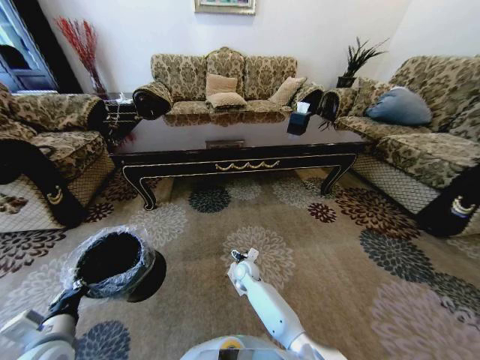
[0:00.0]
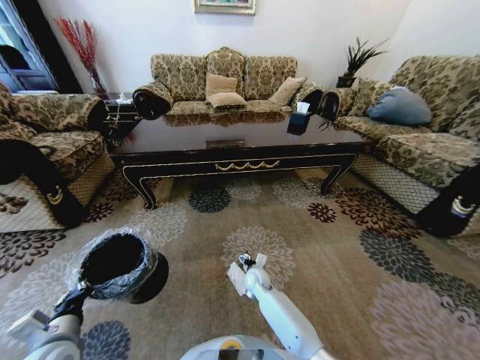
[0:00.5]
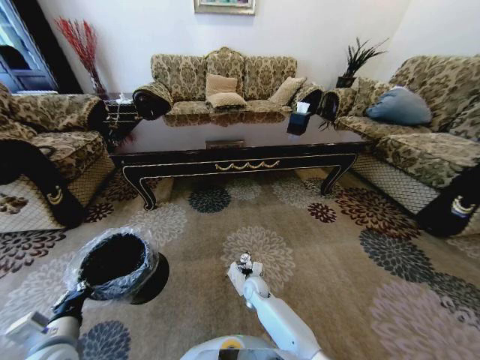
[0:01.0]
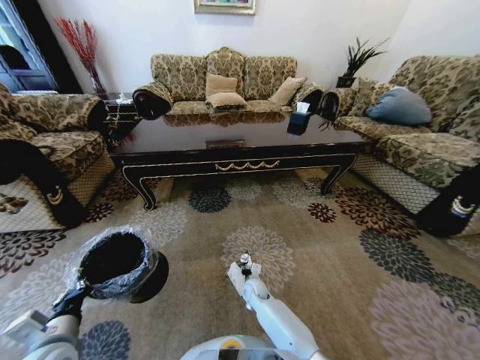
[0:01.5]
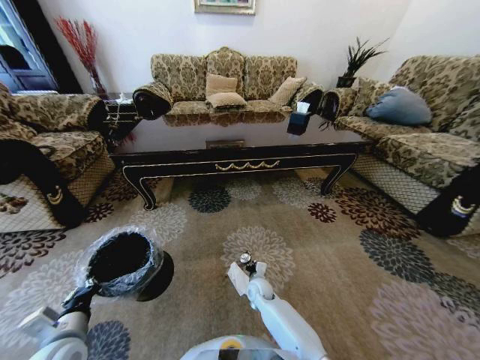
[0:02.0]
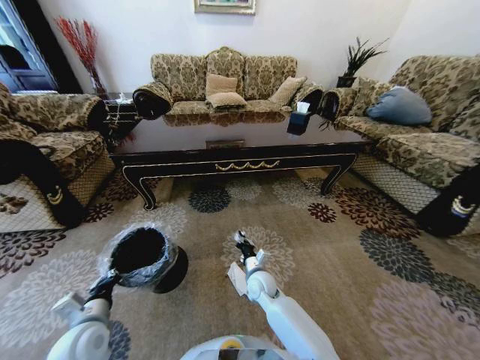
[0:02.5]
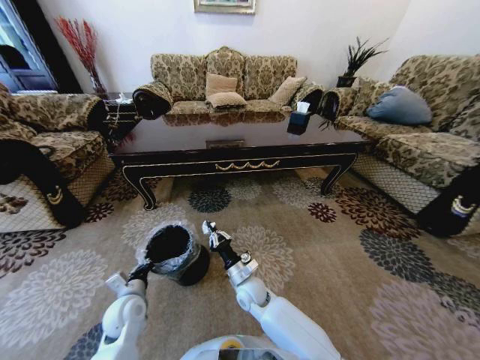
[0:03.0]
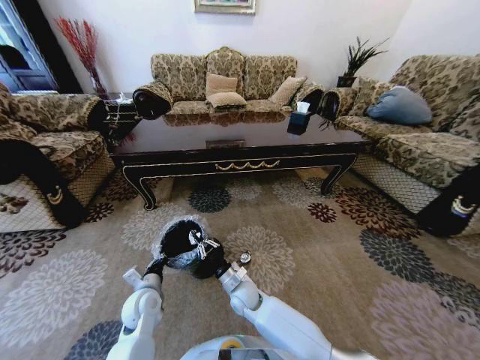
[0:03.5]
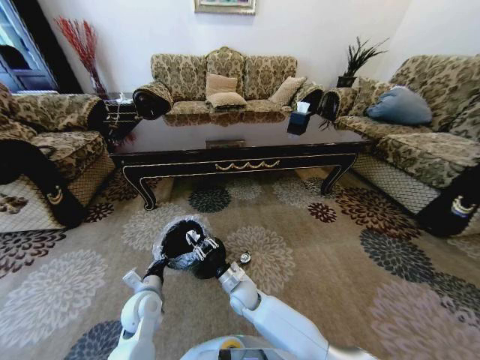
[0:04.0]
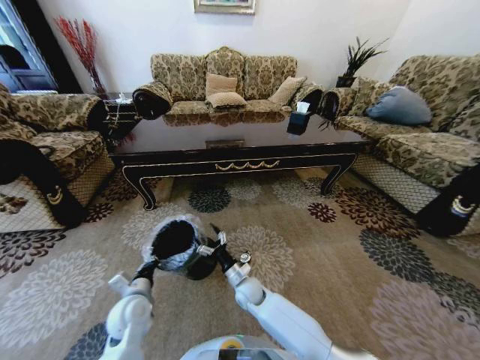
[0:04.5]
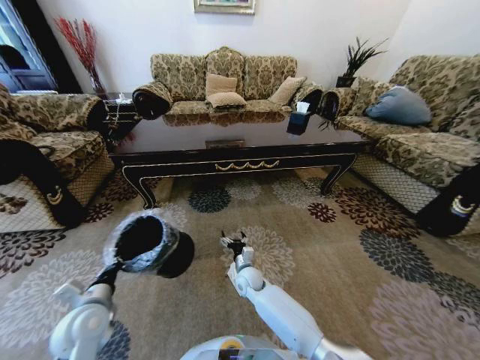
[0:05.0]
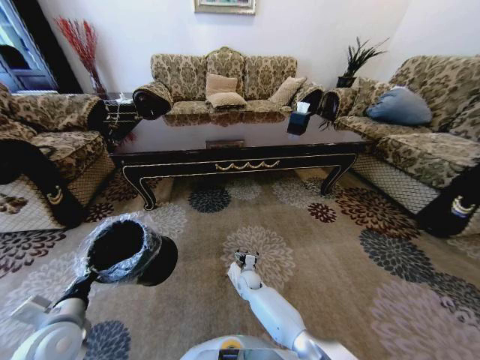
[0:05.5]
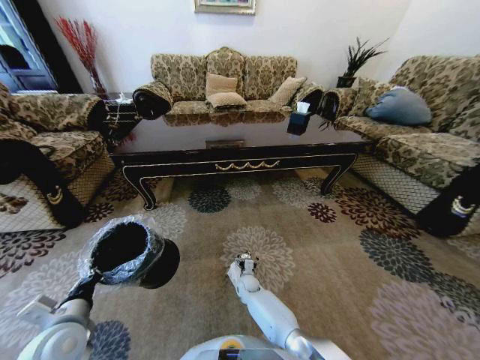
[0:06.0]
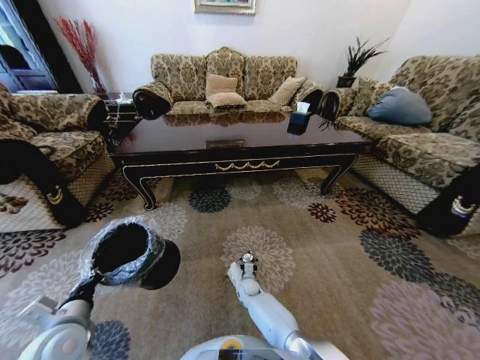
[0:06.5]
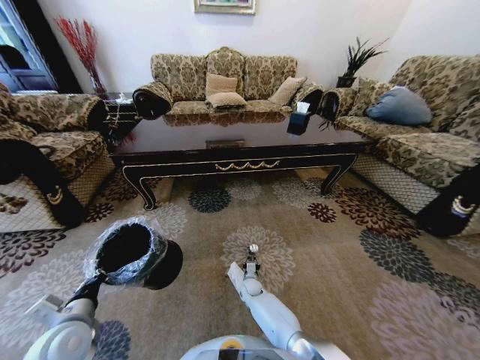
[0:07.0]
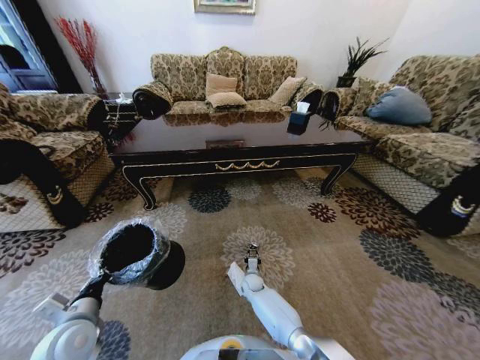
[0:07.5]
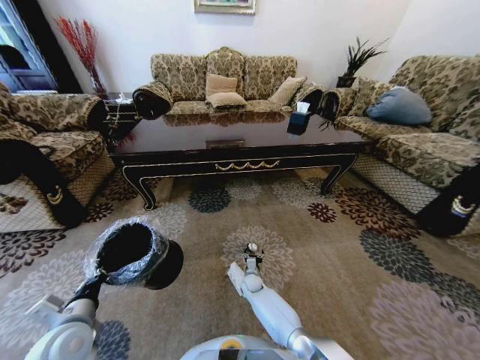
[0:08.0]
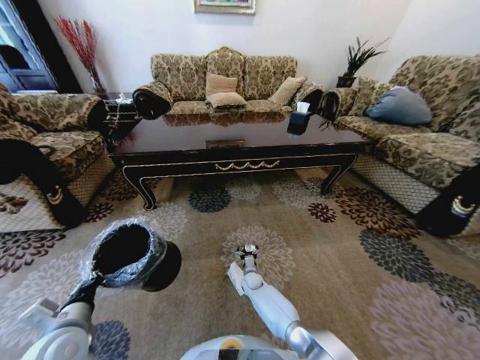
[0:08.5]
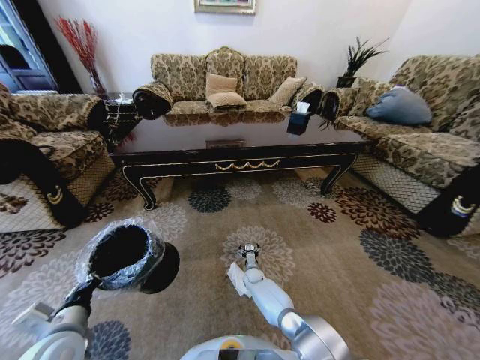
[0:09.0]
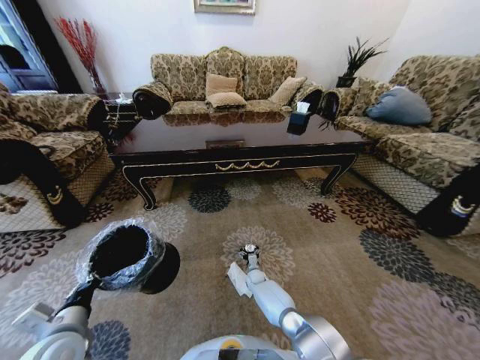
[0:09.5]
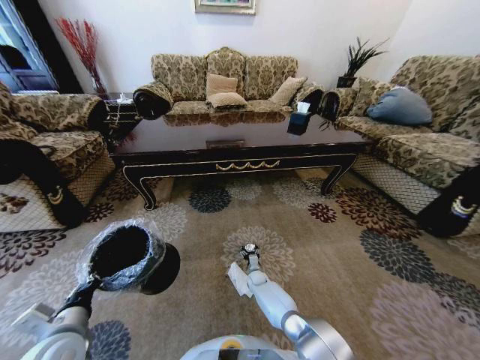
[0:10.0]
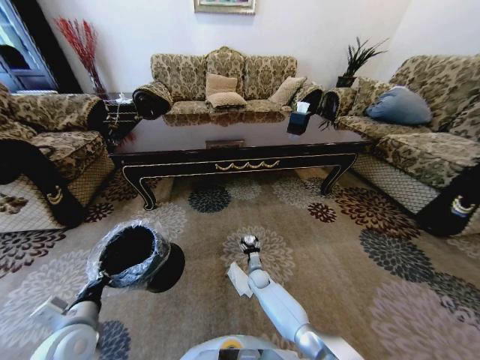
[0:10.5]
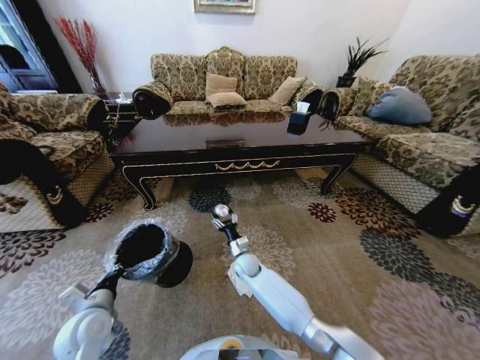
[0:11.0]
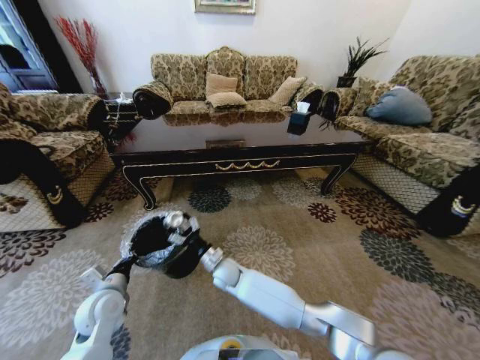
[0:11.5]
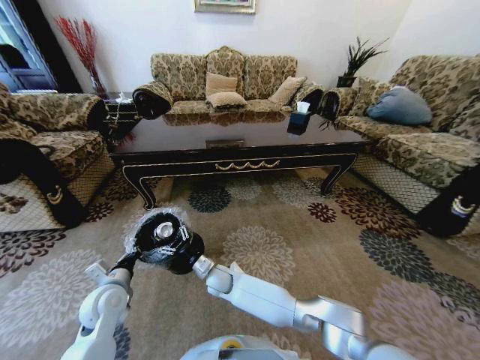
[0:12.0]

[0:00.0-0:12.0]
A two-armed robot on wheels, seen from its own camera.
Task of the whole recording: Move to the front of the table and pick up the trash from the floor, then place it into the trash bin.
0:00.0 to 0:02.0: The right gripper goes about 5 cm backward, and closes up.
0:02.0 to 0:04.0: The left gripper is displaced forward, to the right and downward by roughly 15 cm. Meanwhile the right gripper goes some 10 cm to the left and upward.
0:04.0 to 0:06.0: The left gripper heads to the left, upward and backward, covering approximately 15 cm; the right gripper is displaced downward and forward by approximately 15 cm, and opens up.
0:06.0 to 0:08.0: The right gripper closes, then reopens.
0:08.0 to 0:10.0: The right gripper changes place by some 5 cm.
0:10.0 to 0:12.0: The right gripper travels upward and to the left by some 25 cm. Meanwhile the left gripper moves forward, about 10 cm.

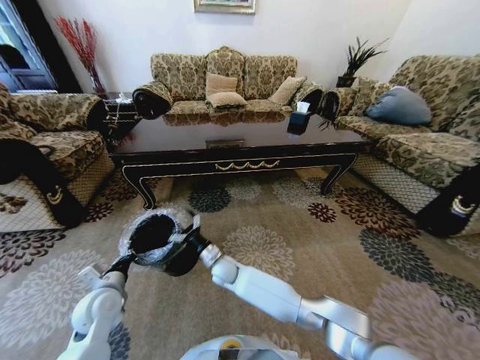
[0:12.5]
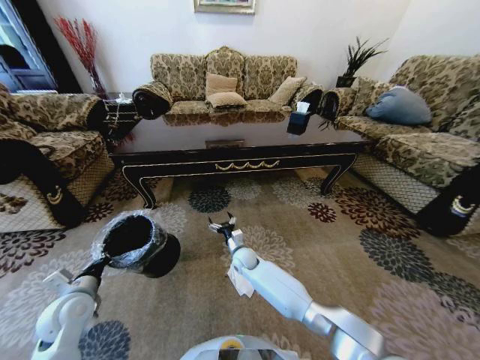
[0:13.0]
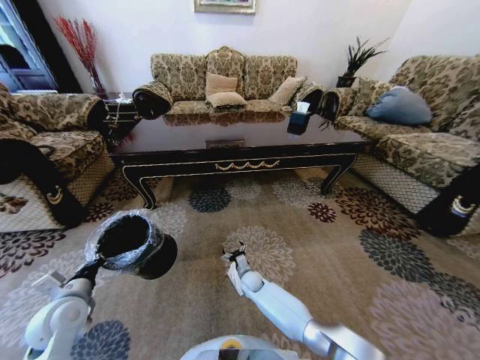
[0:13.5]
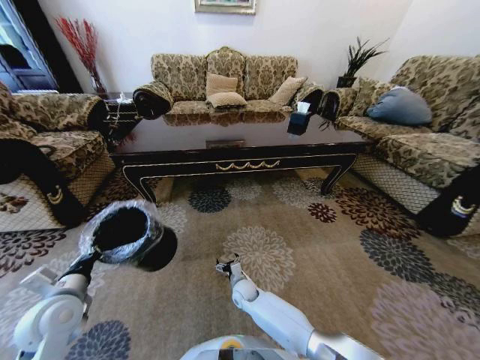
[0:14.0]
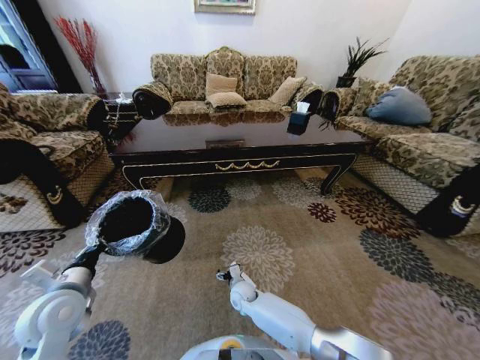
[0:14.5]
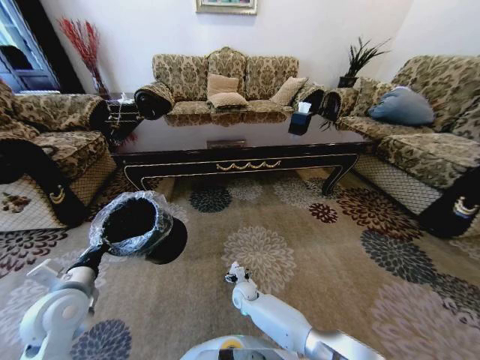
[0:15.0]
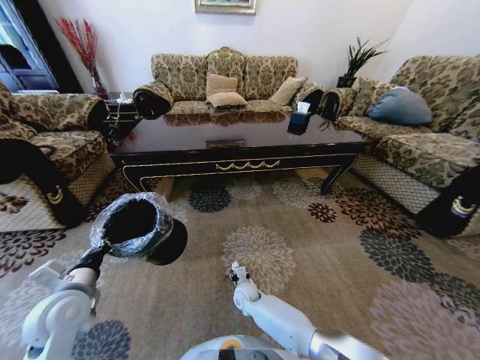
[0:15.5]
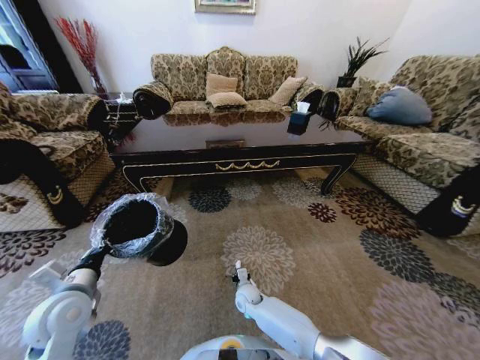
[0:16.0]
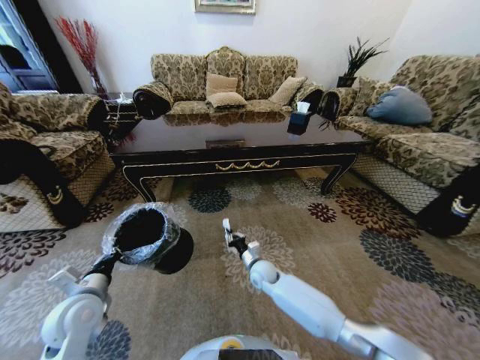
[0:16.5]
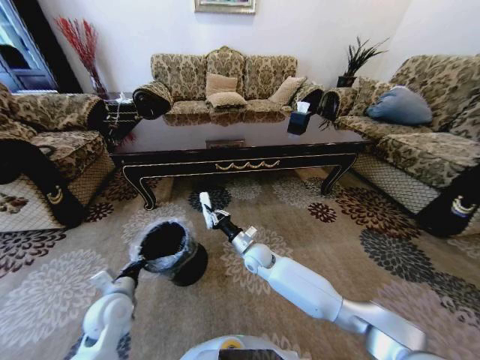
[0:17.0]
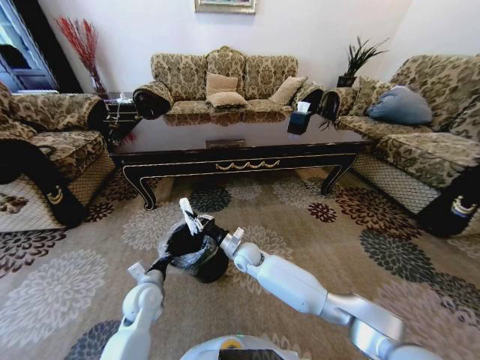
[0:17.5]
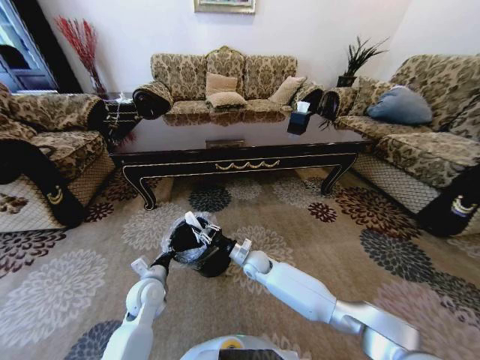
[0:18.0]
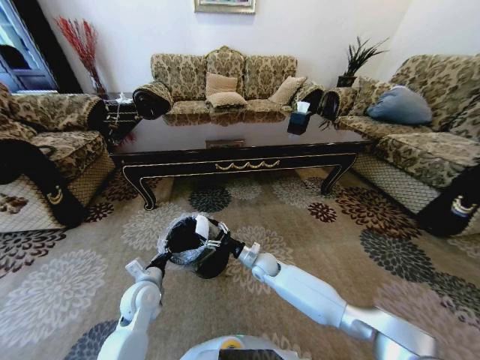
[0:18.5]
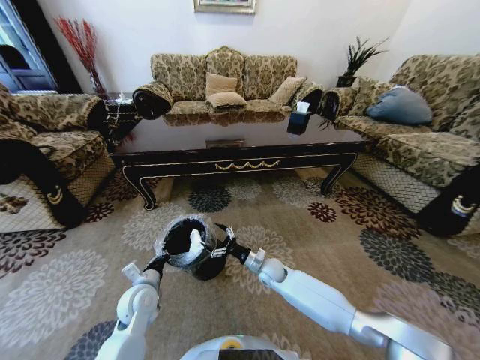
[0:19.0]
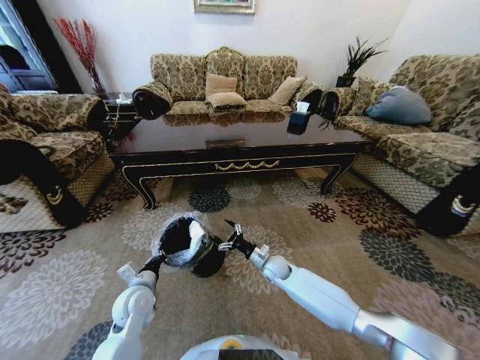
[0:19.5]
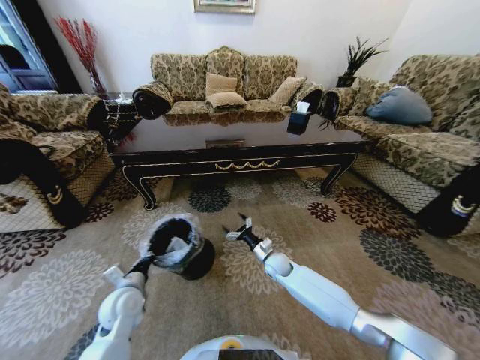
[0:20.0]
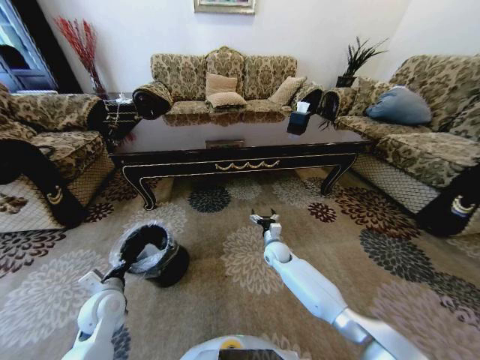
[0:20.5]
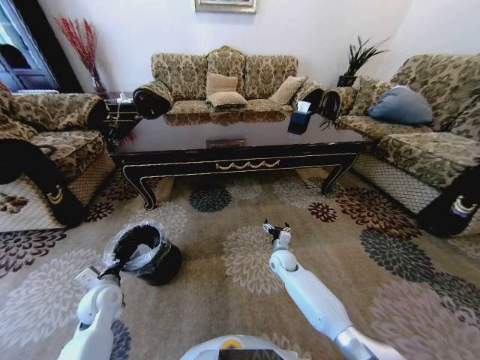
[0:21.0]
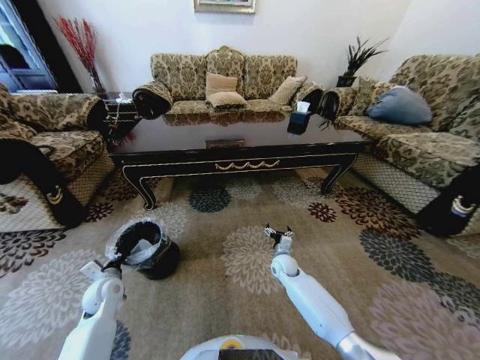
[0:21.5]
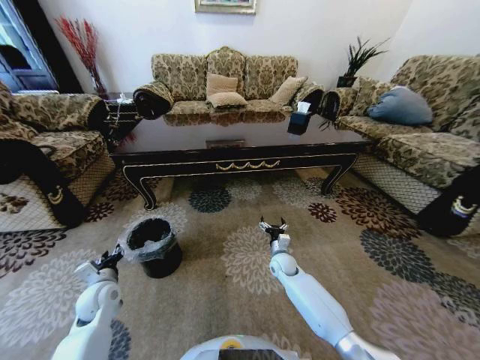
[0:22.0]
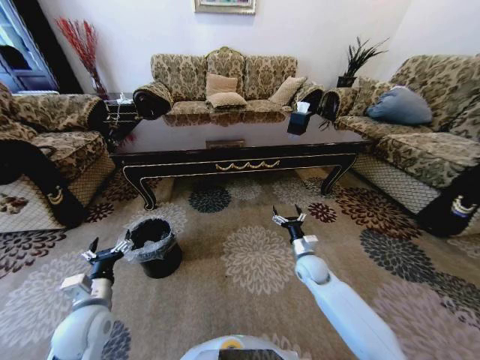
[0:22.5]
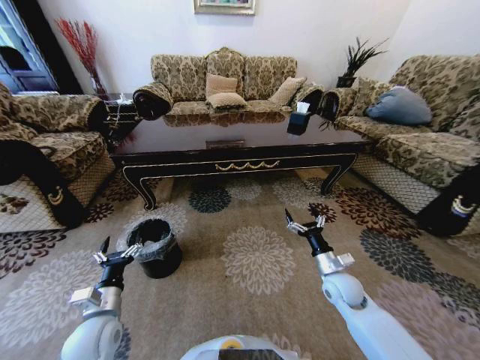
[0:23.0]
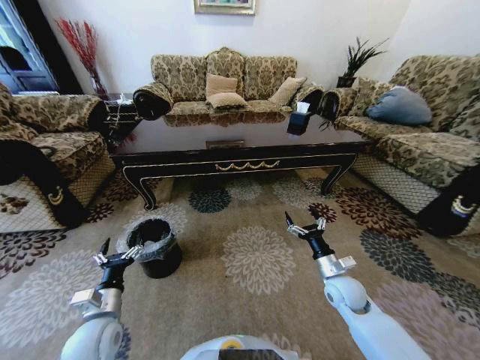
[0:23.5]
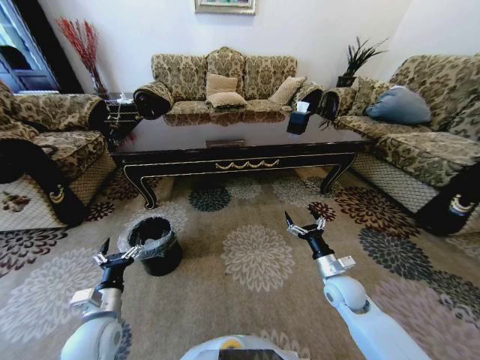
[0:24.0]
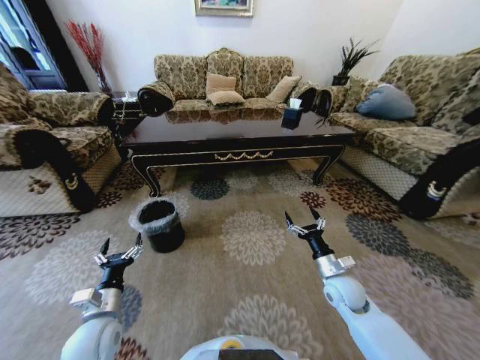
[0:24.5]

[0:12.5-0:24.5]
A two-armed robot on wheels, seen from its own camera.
Task of the whole recording: Move to the front of the table and pick up the trash from the floor, then place it into the trash bin.
0:12.5 to 0:14.5: The left gripper is displaced upward by some 10 cm, while the right gripper goes about 15 cm downward, to the right and backward.
0:14.5 to 0:16.5: The right gripper travels upward and to the right by about 10 cm, and closes.
0:16.5 to 0:18.5: The right gripper reaches roughly 10 cm upward, then returns, and opens its fingers. Meanwhile the left gripper moves to the right, downward and forward, some 15 cm.
0:18.5 to 0:20.5: The right gripper moves to the right and forward, roughly 10 cm; the left gripper goes about 10 cm to the left.
0:20.5 to 0:22.5: The left gripper shifts by some 5 cm, and opens up. Meanwhile the right gripper heads to the right and backward, covering about 10 cm.
0:22.5 to 0:24.5: The right gripper heads backward and to the right, covering approximately 10 cm.

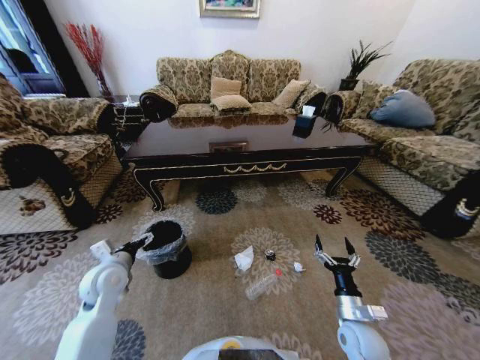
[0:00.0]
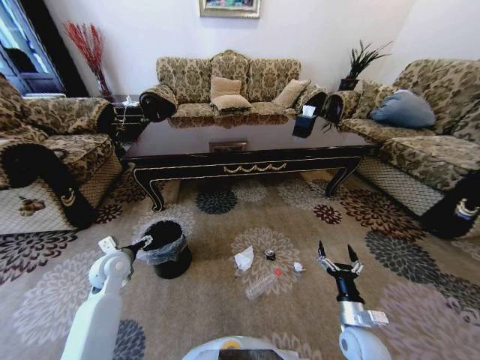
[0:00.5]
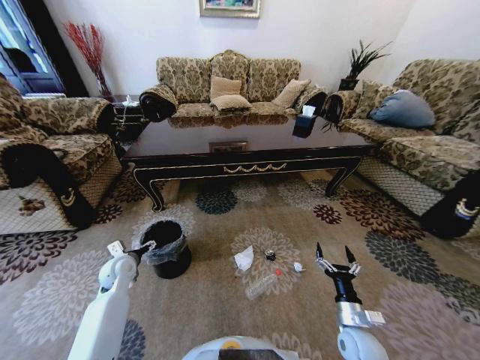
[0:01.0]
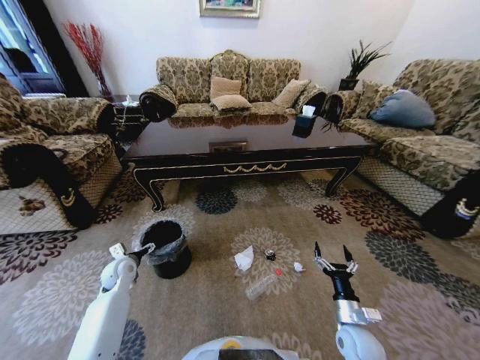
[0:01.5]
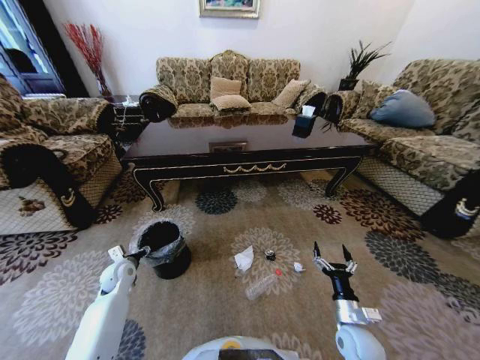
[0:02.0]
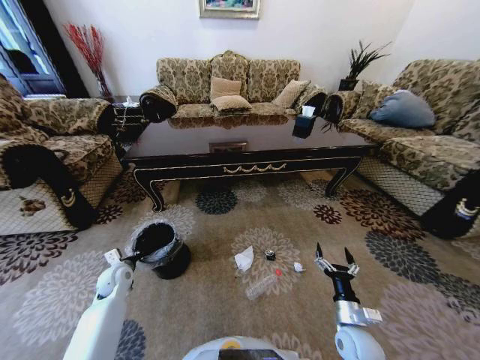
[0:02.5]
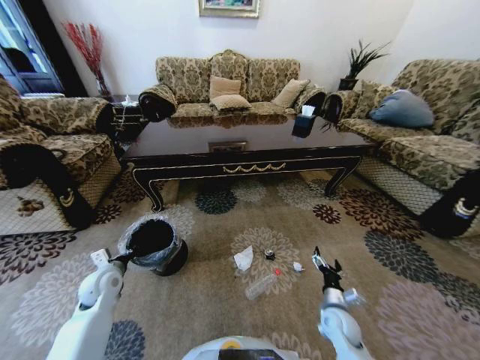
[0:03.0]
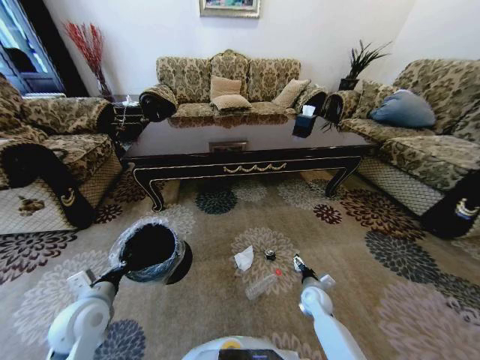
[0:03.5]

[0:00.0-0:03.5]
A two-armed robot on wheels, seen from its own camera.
Task of the whole recording: Move to the front of the table and pick up the trash from the floor, then place it into the trash bin.
0:00.0 to 0:02.0: The left gripper moves downward and forward, approximately 15 cm.
0:02.0 to 0:03.5: The left gripper travels backward and upward by some 20 cm, and closes its fingers. Meanwhile the right gripper heads forward and downward, covering some 15 cm.
